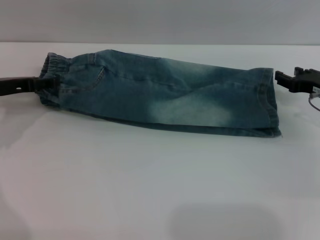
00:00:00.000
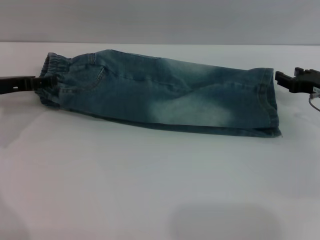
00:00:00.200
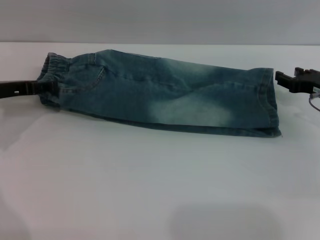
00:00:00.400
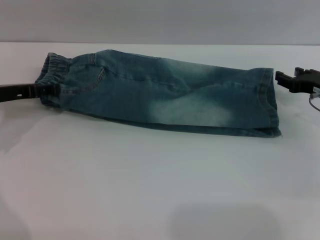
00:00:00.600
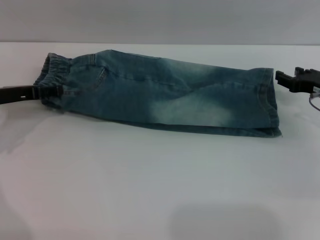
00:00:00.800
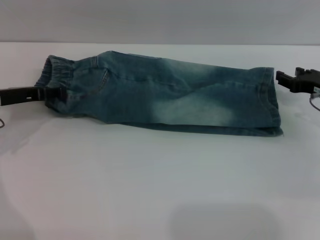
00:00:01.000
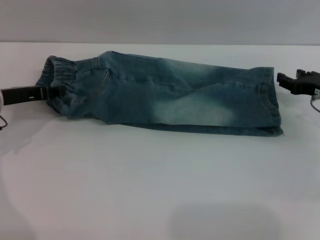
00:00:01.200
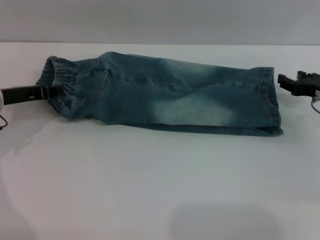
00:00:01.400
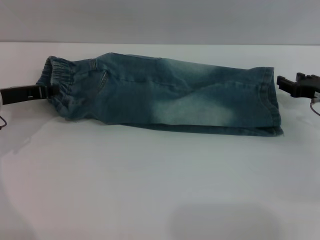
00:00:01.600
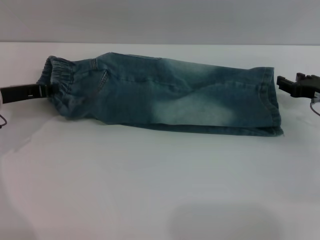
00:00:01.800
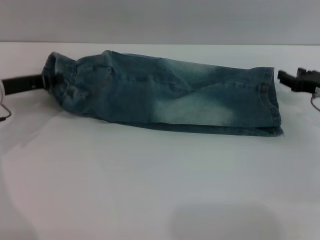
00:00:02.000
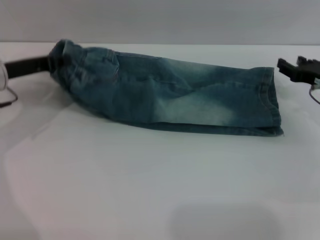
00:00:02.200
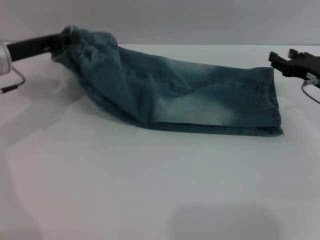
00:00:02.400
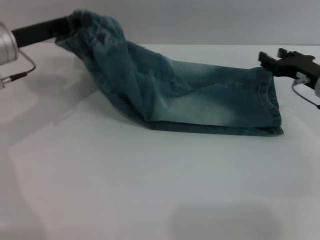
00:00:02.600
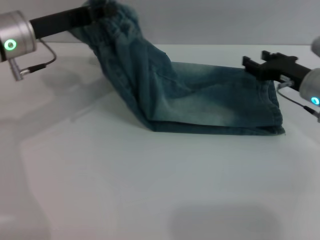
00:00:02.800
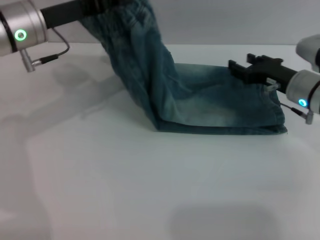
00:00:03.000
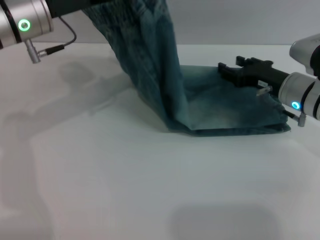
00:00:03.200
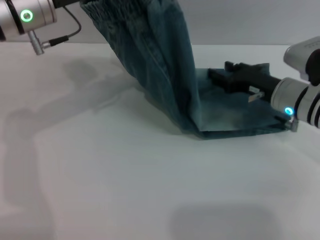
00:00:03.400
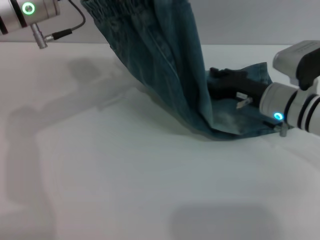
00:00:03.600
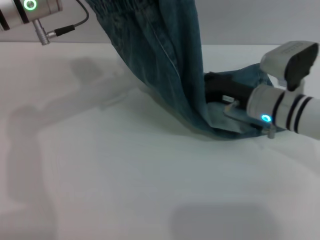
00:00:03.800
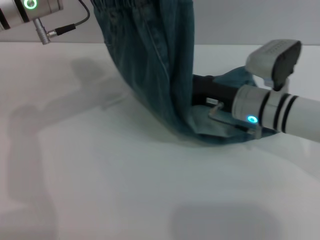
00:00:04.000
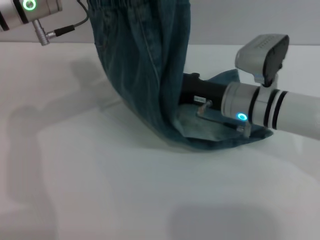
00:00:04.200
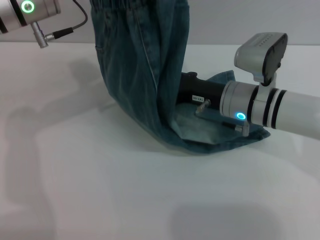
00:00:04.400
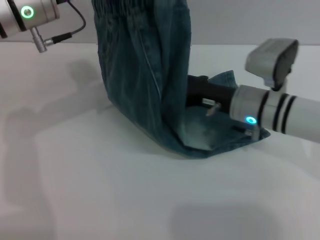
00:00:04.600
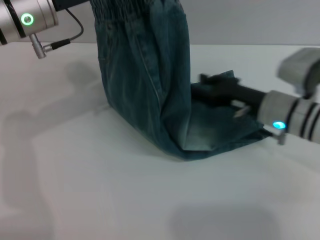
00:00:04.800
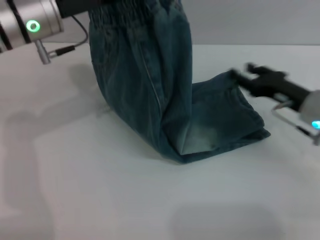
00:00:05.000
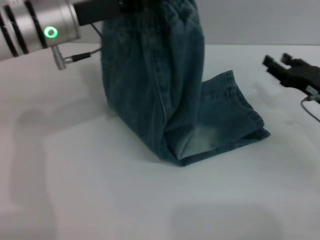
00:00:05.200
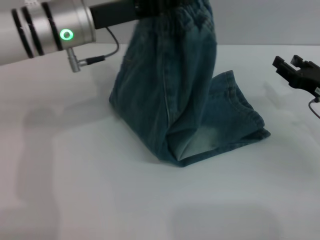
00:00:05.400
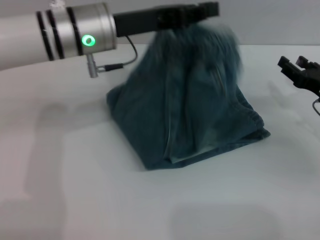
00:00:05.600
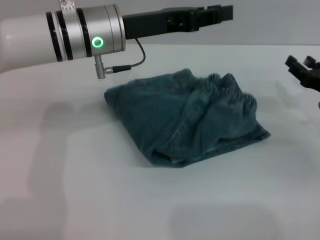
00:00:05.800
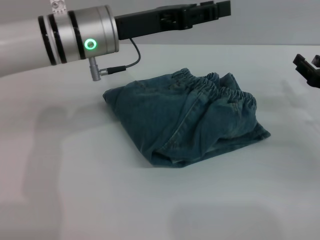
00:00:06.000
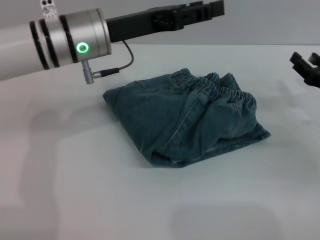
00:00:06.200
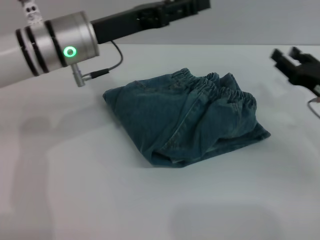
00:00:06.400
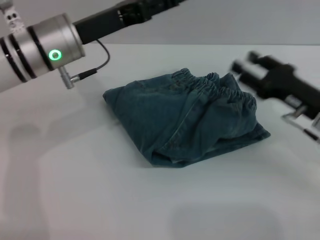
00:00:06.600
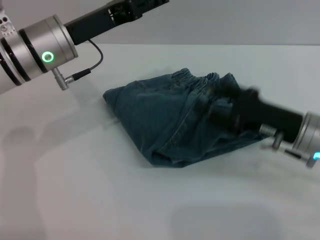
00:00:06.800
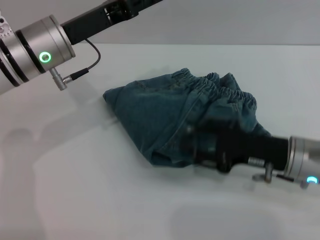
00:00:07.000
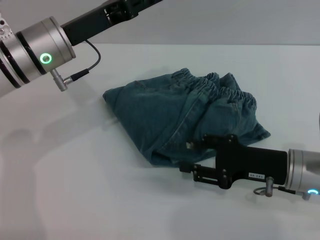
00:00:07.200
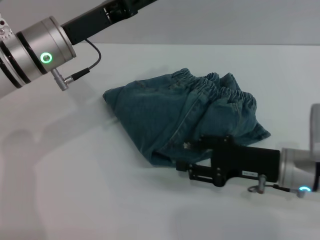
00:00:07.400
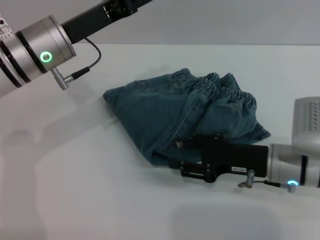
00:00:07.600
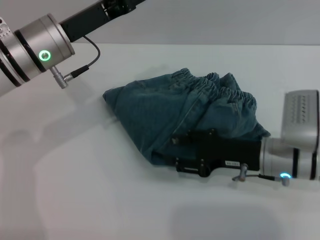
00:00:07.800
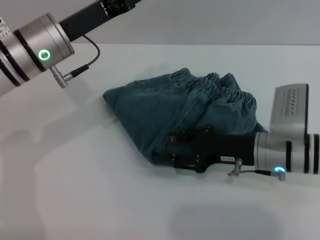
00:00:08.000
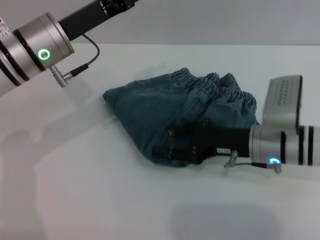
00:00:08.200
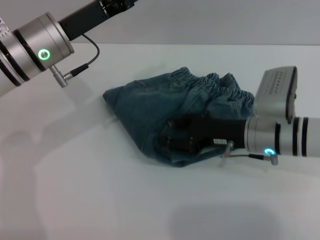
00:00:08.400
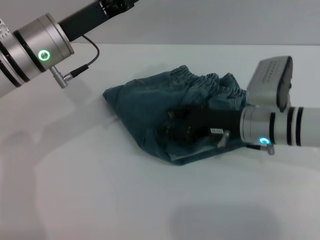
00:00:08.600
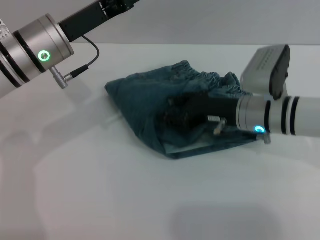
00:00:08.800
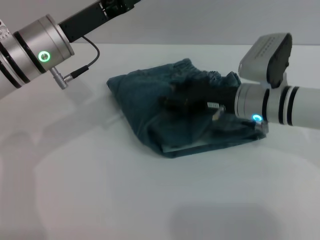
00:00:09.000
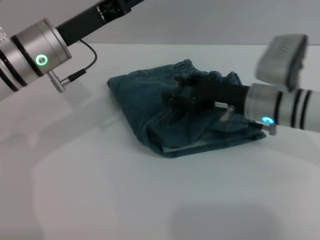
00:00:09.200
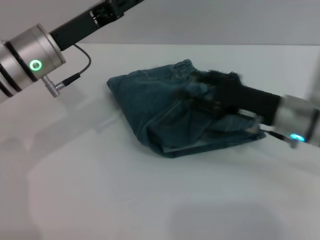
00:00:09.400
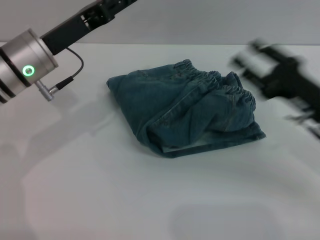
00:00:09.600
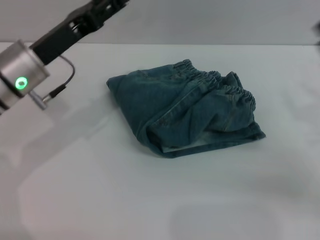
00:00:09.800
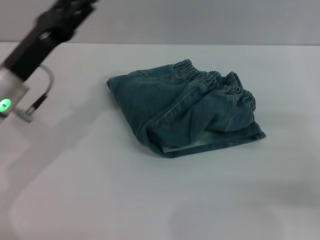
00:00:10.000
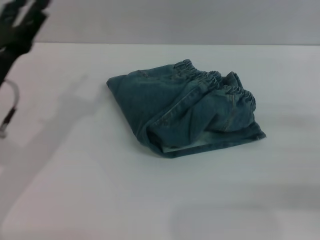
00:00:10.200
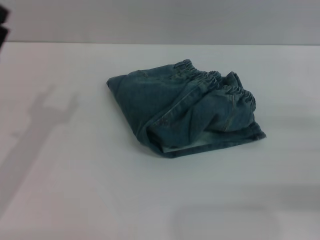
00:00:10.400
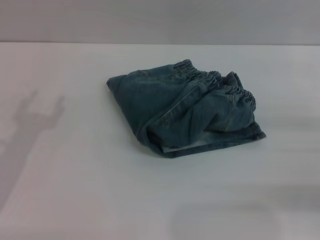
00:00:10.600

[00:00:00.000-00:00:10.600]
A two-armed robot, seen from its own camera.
Step, 00:00:00.000 to 00:00:05.800: Fold the pants from left to right with the left gripper.
Step, 00:00:06.000 to 00:00:09.200: Place the folded trousers onto the center area with the right grippers.
00:00:00.000 to 00:00:01.600: The left gripper closes.
00:00:01.600 to 00:00:03.000: The left gripper goes roughly 15 cm upward and to the right, while the right gripper goes roughly 5 cm to the left.
00:00:03.000 to 00:00:04.600: The right gripper heads to the left, covering approximately 10 cm.
00:00:04.600 to 00:00:06.000: The right gripper shifts approximately 15 cm to the right. Meanwhile the left gripper is displaced to the right by about 5 cm.
00:00:06.000 to 00:00:07.600: The left gripper is displaced to the left by some 5 cm, and opens up. The right gripper shifts approximately 15 cm to the left.
00:00:07.600 to 00:00:09.000: The right gripper is displaced forward by roughly 10 cm.
00:00:09.000 to 00:00:10.600: The left gripper goes approximately 20 cm backward, to the left and downward, while the right gripper goes about 25 cm to the right and backward.
